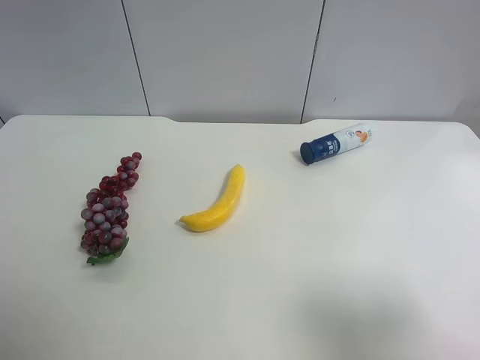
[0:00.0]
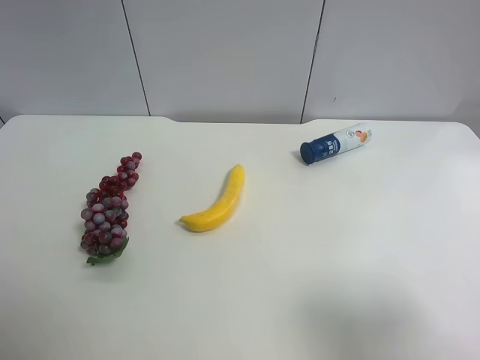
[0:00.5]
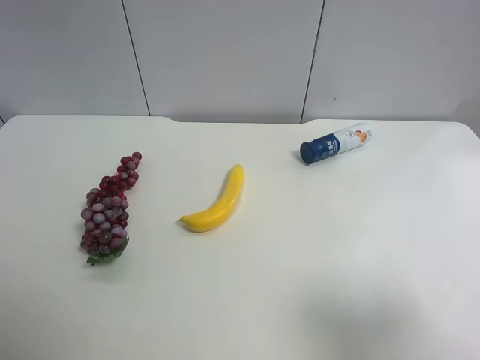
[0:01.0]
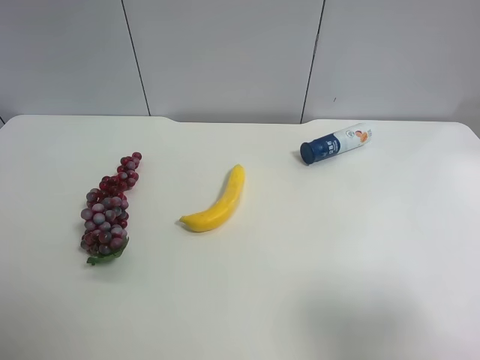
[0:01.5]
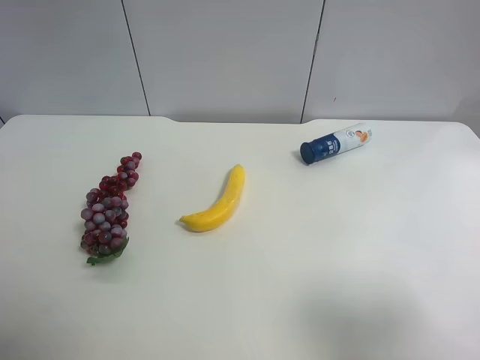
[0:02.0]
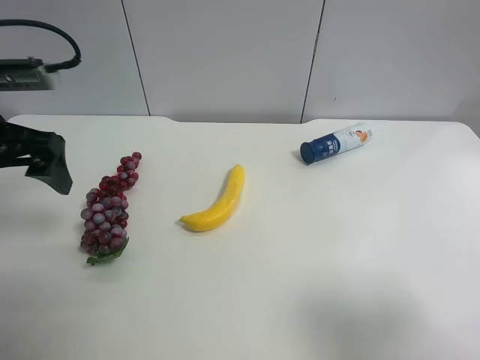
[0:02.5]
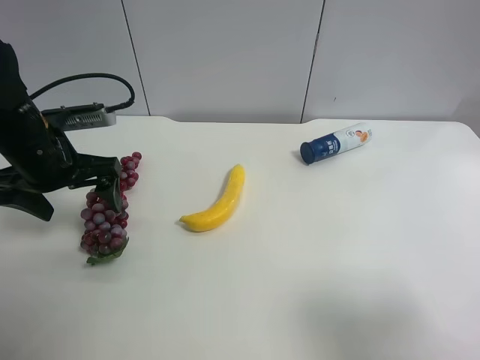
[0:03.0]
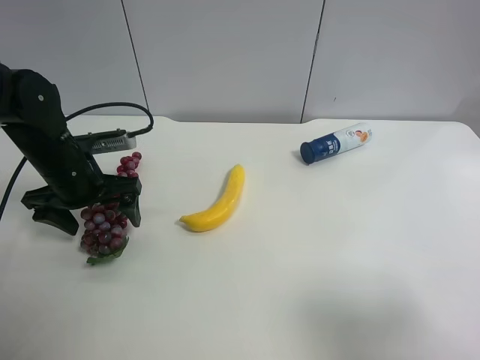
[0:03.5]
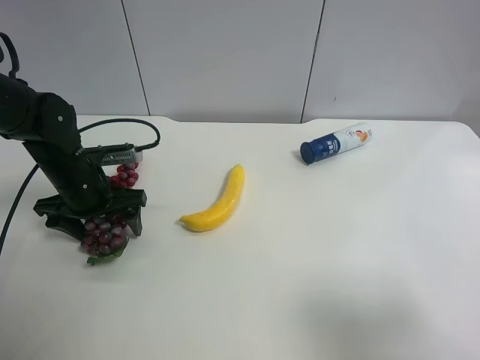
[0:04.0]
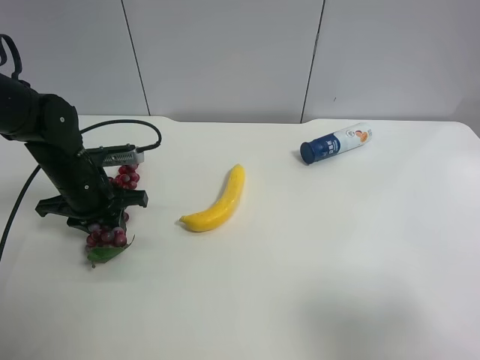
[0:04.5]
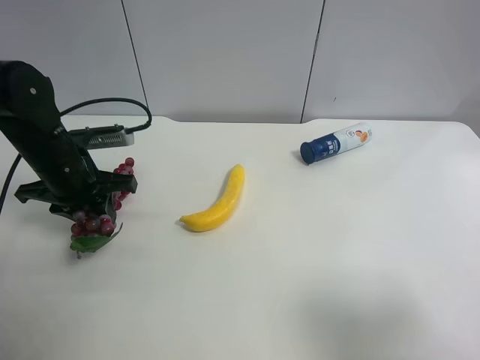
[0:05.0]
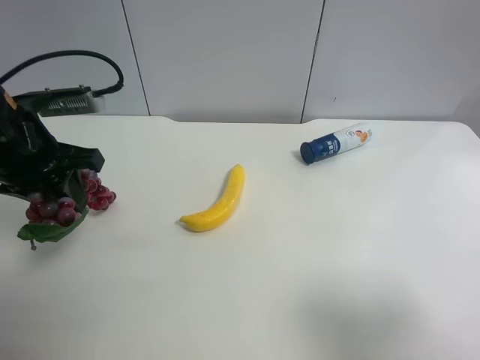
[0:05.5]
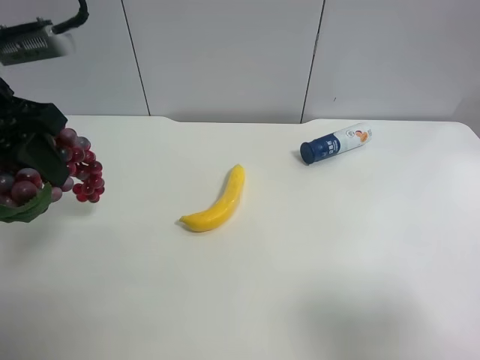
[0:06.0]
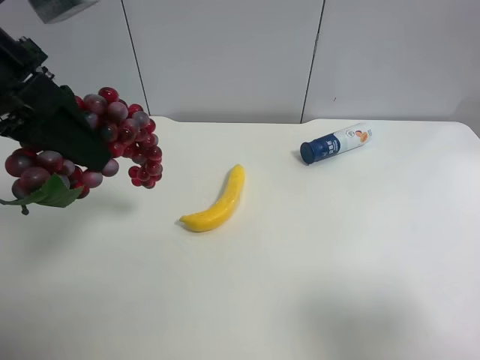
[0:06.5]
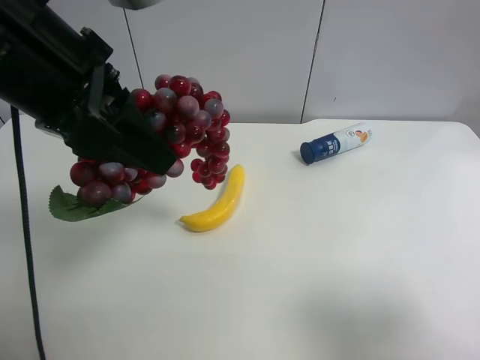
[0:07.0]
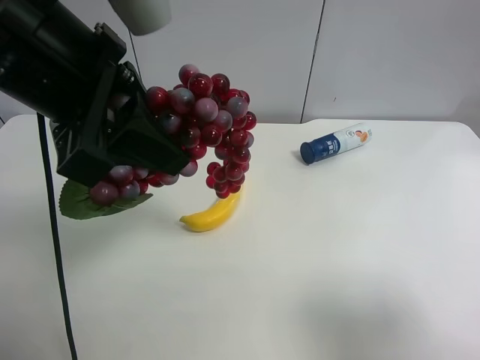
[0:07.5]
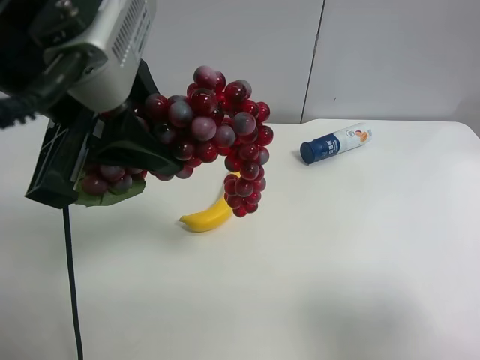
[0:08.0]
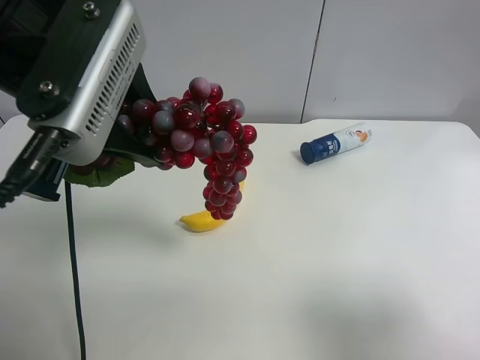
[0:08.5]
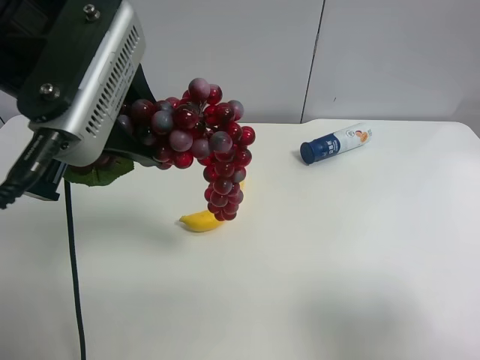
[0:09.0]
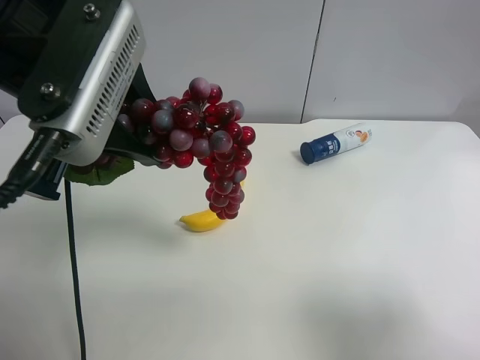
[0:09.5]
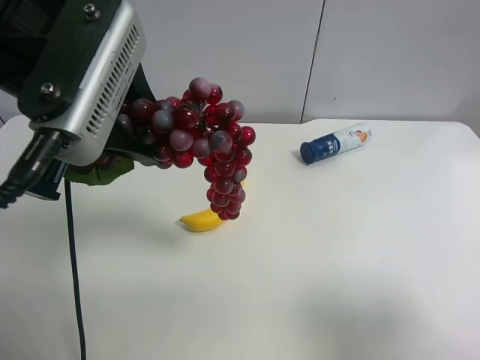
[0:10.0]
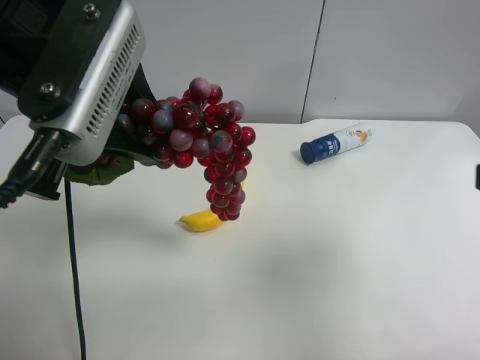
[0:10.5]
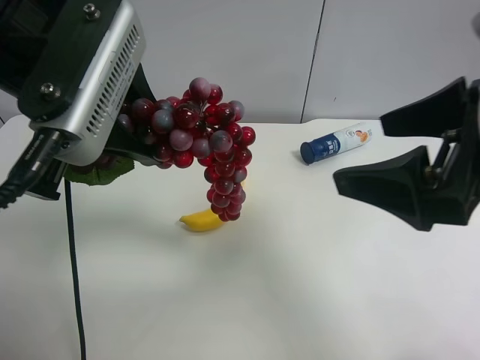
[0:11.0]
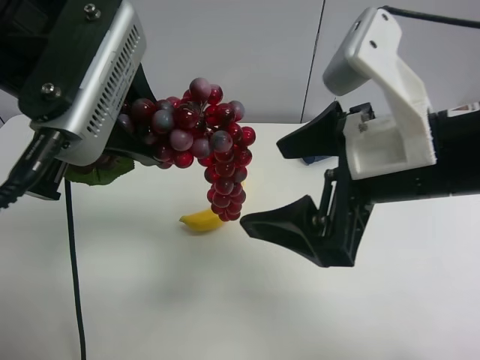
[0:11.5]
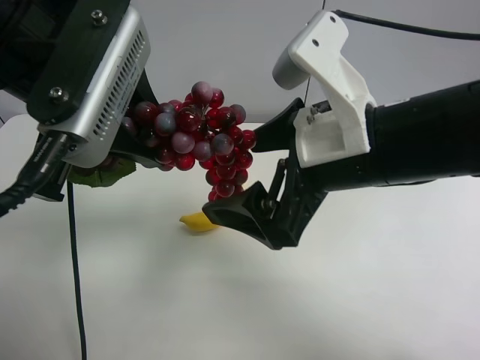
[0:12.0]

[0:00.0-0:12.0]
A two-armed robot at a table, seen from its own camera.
Task of the whole recording: use the left gripper to pick up the item and transfer it from the left gripper to the right gripper.
0:02.0 to 0:04.0: The left gripper heads downward, forward and to the right, covering some 30 cm.
0:04.0 to 0:06.0: The left gripper travels upward and backward by roughly 20 cm, and closes its fingers.
0:06.0 to 0:08.0: The left gripper is displaced to the right by about 10 cm.
0:08.0 to 0:10.0: The grippers stay close to where they were, moving slightly.
0:10.0 to 0:12.0: The right gripper heads to the left and forward, covering about 25 cm.

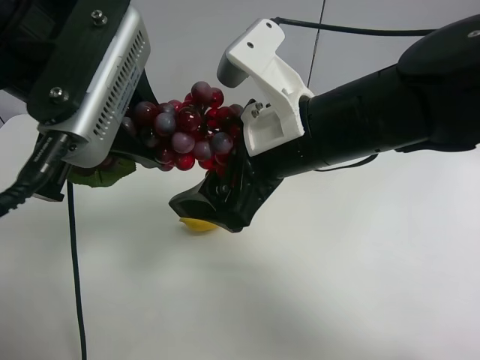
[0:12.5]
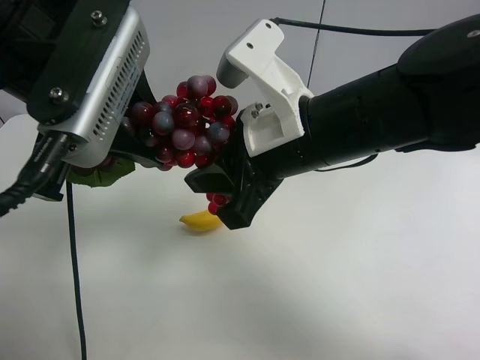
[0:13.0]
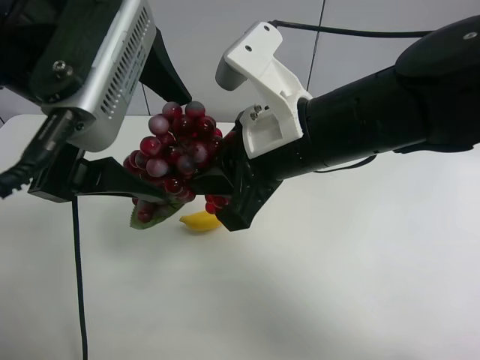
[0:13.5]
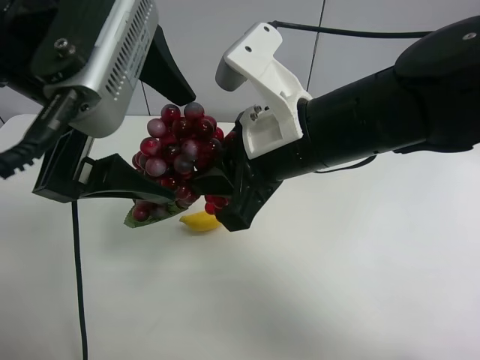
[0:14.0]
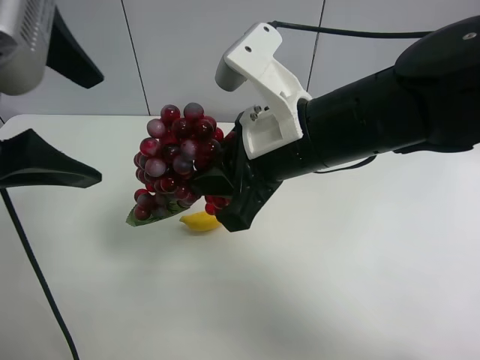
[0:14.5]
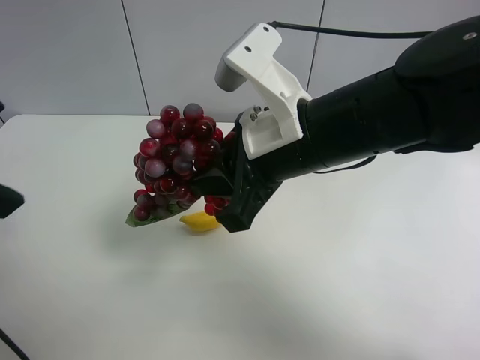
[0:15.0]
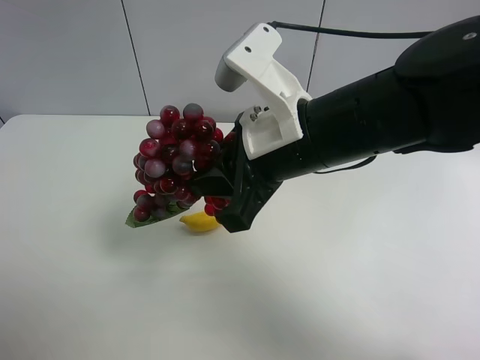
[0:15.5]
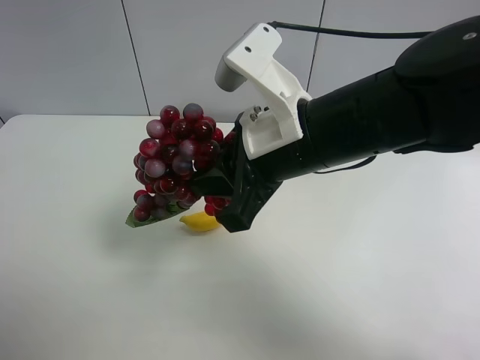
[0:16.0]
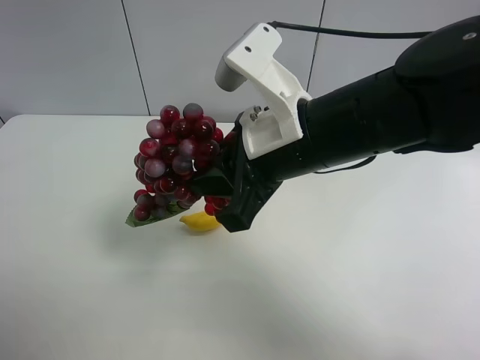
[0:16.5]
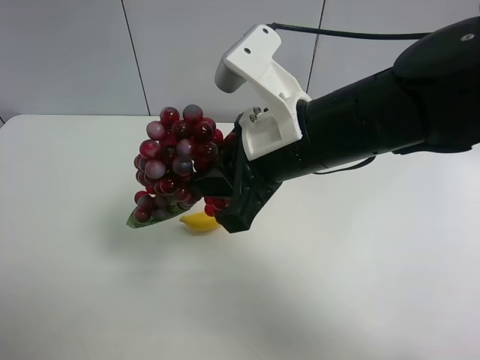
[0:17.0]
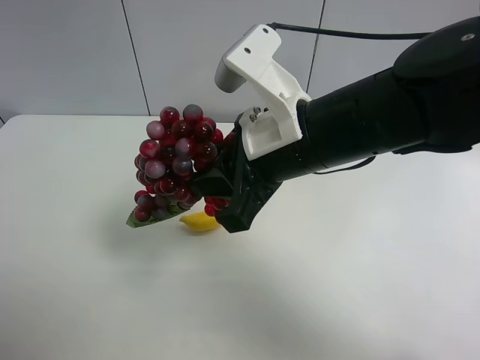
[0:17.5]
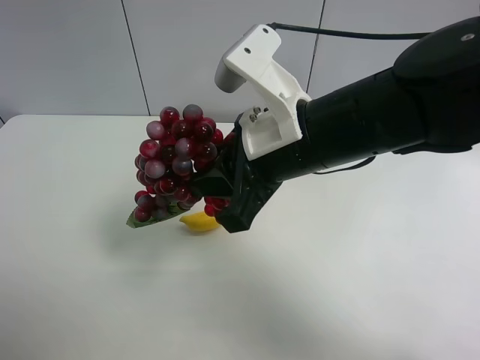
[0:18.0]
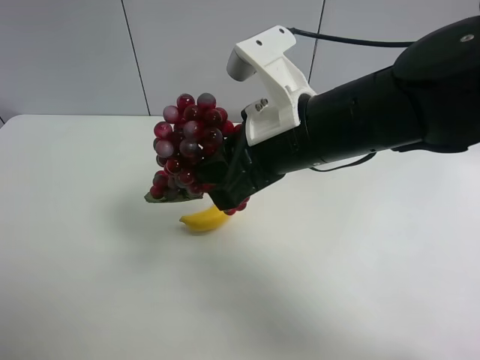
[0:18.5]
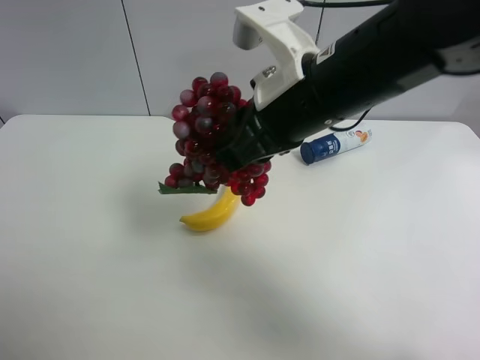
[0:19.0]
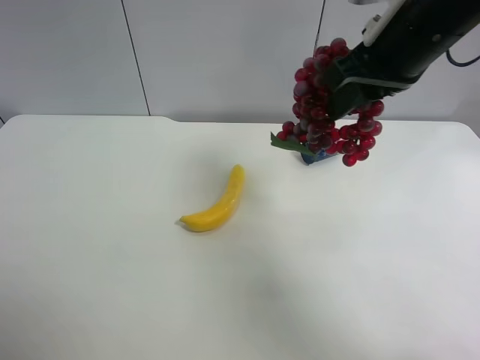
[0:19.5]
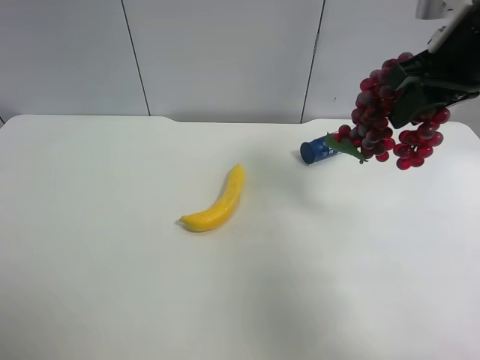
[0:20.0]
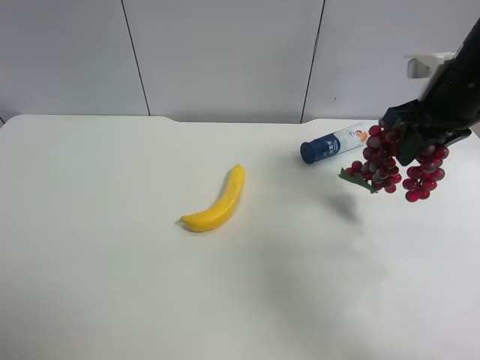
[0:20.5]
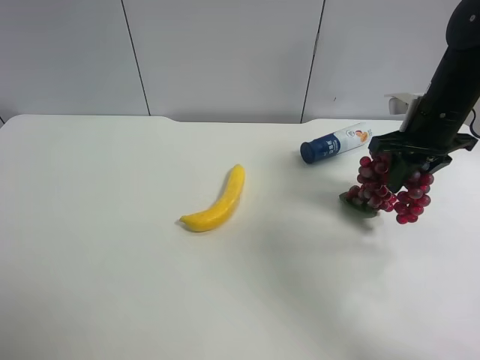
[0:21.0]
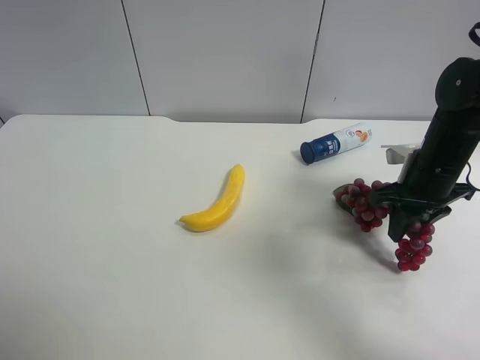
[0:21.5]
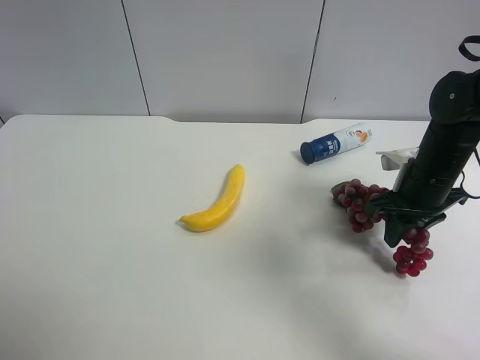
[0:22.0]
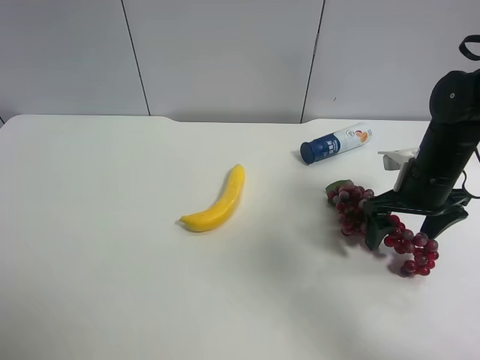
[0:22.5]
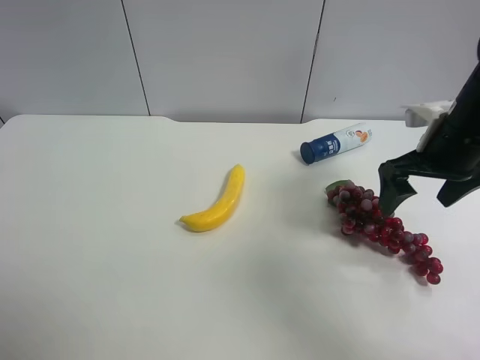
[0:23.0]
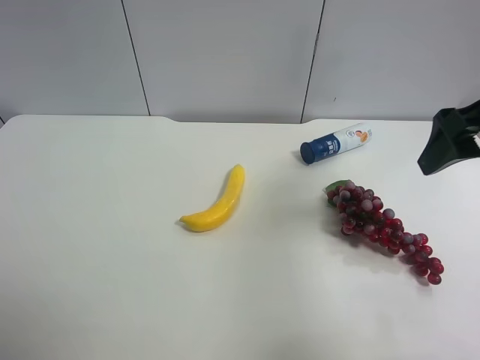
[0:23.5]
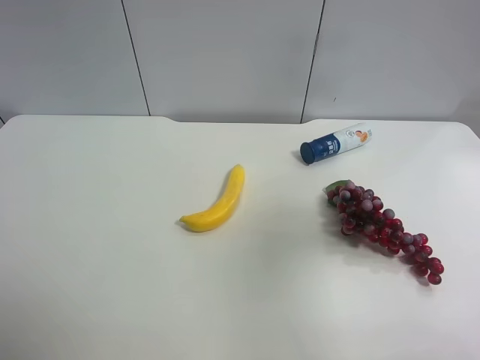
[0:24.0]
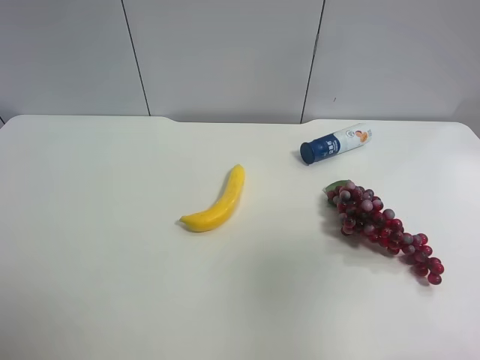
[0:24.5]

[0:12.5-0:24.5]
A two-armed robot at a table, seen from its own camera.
Task of the whole recording: use the left gripper to pick up the item and transfer it from the left gripper to the right gripper.
0:12.5 to 0:14.5: The right gripper closes. The left gripper shifts by some 5 cm, and opens up.
0:14.5 to 0:16.5: The left gripper goes roughly 25 cm backward, to the left and downward.
0:18.5 to 0:20.5: The right gripper goes approximately 25 cm to the right and forward.
0:20.5 to 0:22.5: The right gripper travels downward by roughly 10 cm, and opens its fingers.
0:22.5 to 0:24.5: The right gripper is displaced backward and upward by roughly 35 cm.

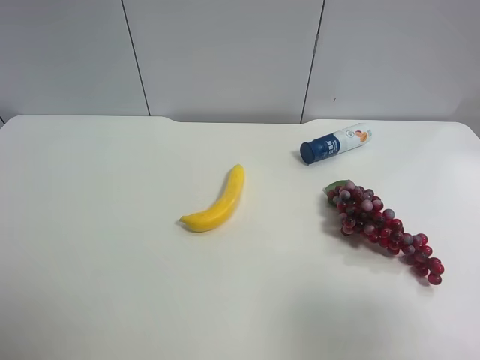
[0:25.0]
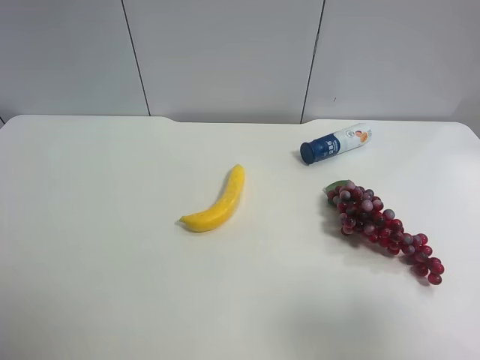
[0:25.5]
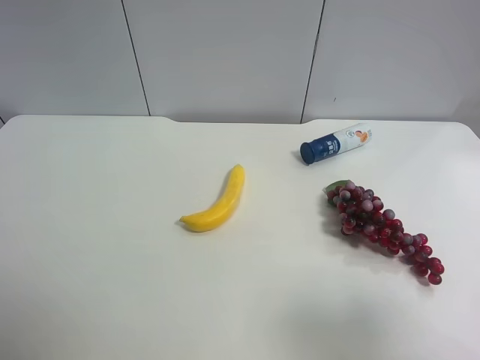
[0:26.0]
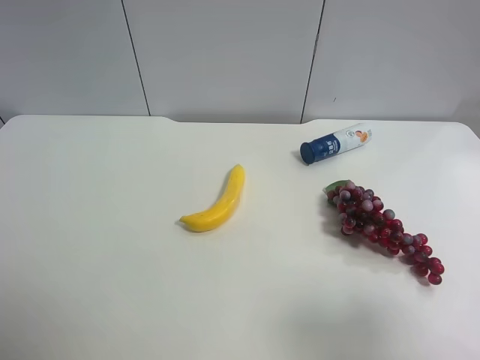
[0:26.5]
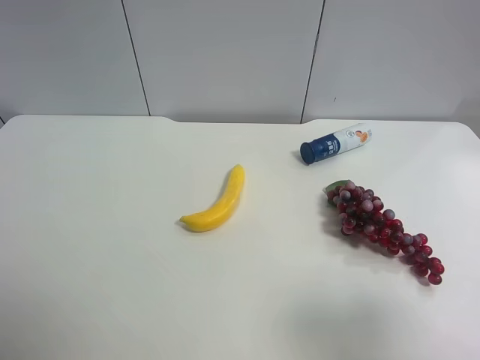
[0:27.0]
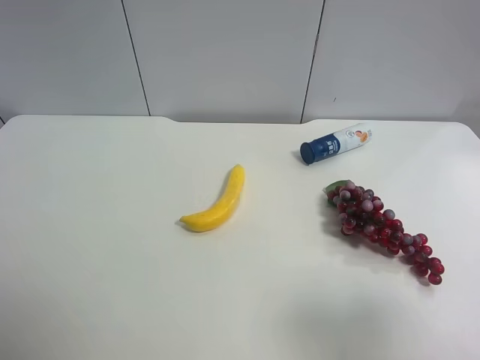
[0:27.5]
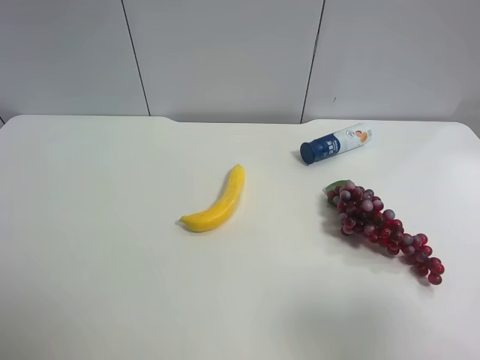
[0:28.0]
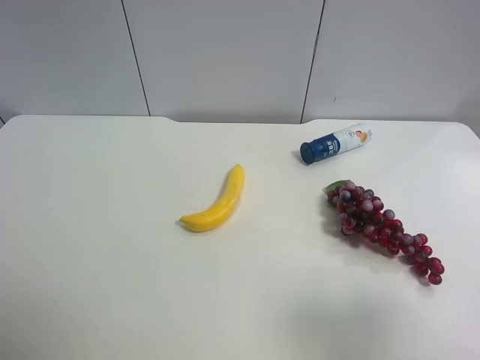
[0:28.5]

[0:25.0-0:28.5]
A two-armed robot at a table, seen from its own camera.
Task of the whole recording: use the left gripper to pick up the item and transfer it from the left gripper to the right gripper.
0:27.0 to 0:28.5: Both grippers stay about where they are.
